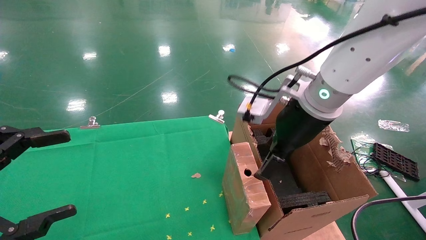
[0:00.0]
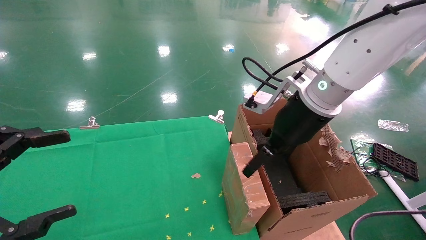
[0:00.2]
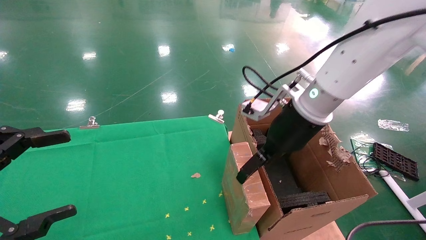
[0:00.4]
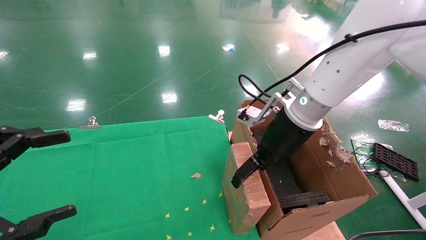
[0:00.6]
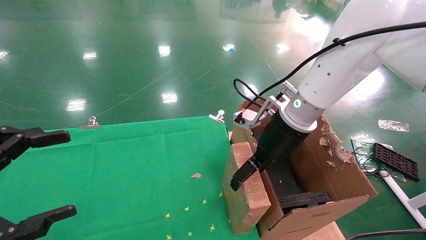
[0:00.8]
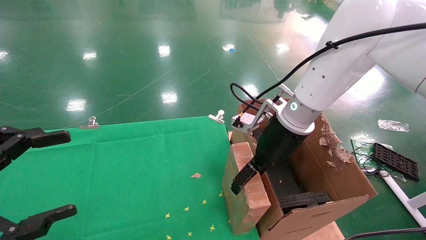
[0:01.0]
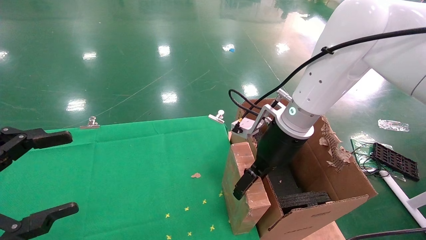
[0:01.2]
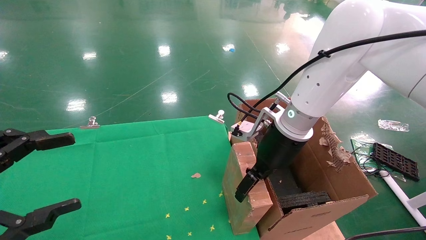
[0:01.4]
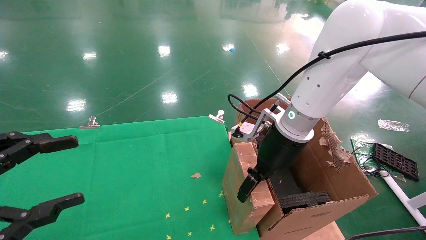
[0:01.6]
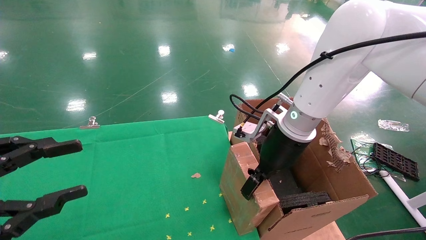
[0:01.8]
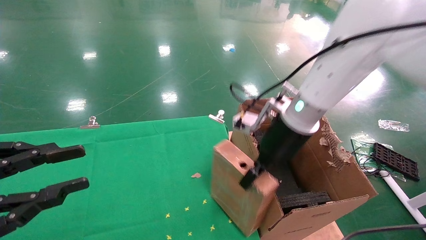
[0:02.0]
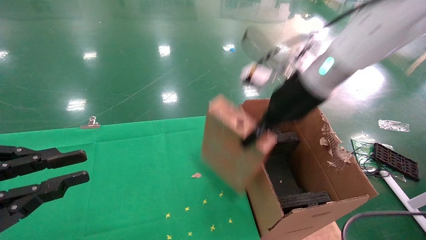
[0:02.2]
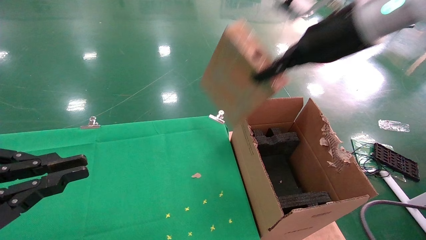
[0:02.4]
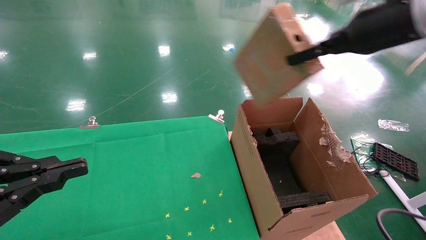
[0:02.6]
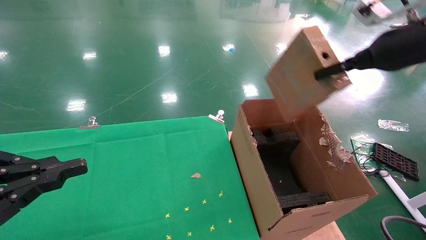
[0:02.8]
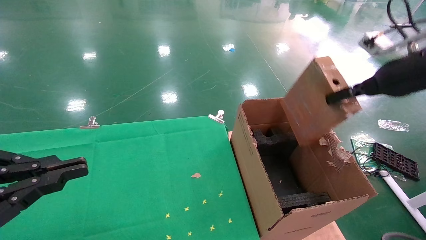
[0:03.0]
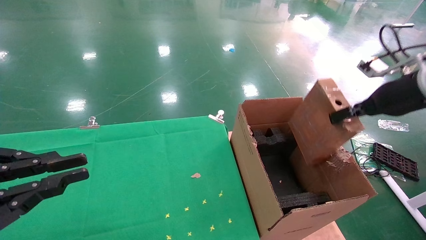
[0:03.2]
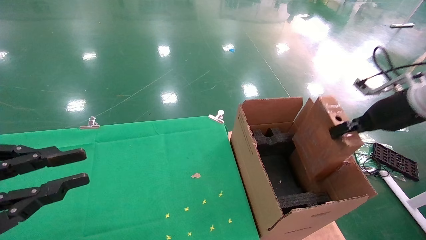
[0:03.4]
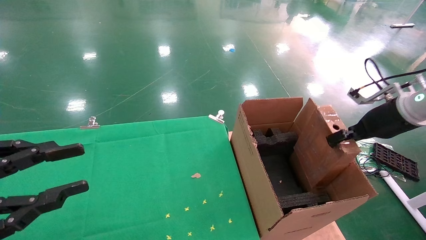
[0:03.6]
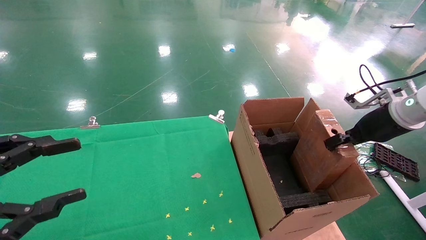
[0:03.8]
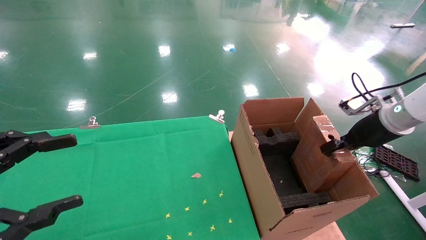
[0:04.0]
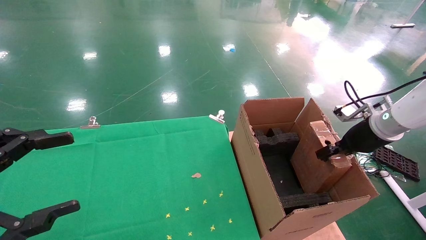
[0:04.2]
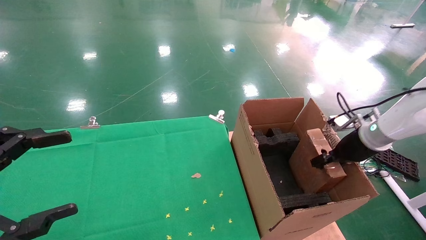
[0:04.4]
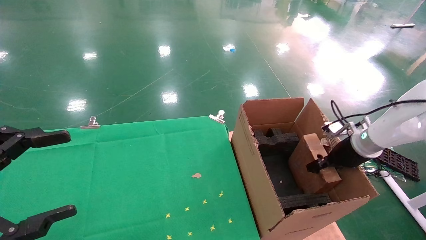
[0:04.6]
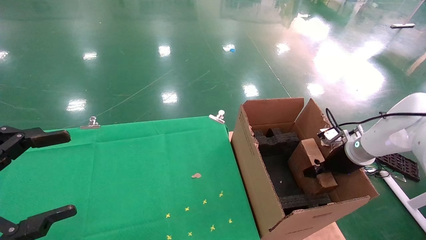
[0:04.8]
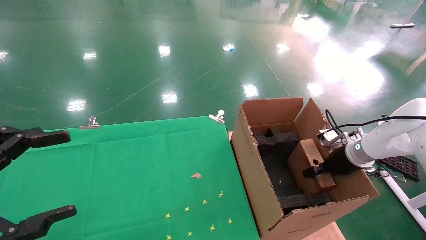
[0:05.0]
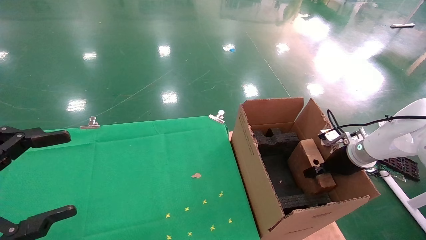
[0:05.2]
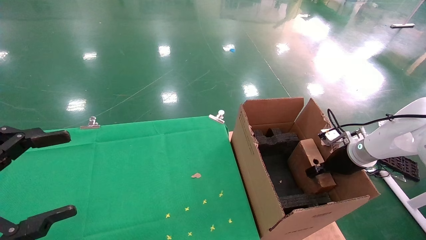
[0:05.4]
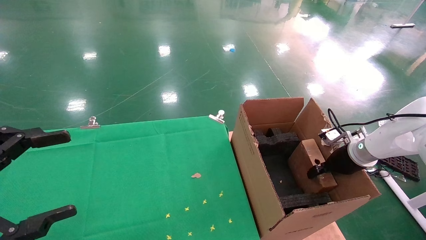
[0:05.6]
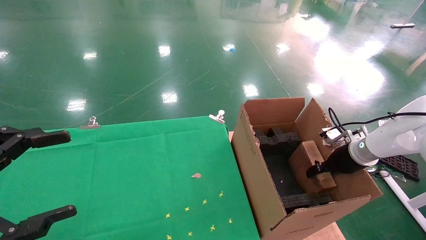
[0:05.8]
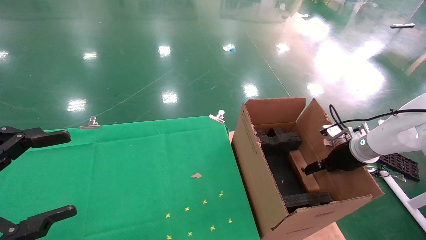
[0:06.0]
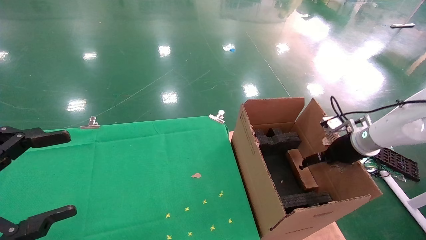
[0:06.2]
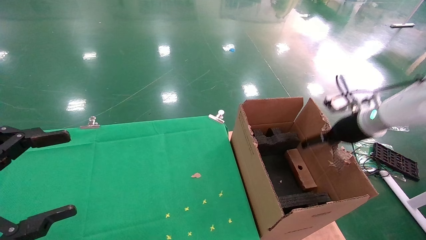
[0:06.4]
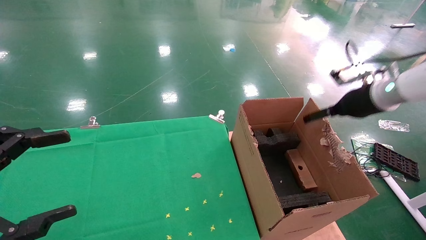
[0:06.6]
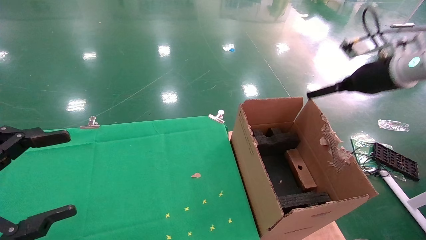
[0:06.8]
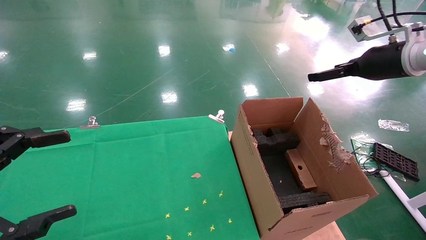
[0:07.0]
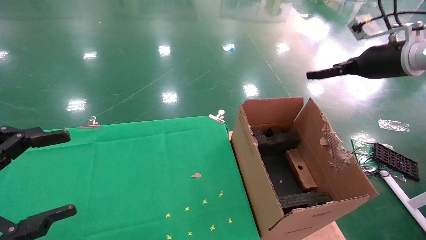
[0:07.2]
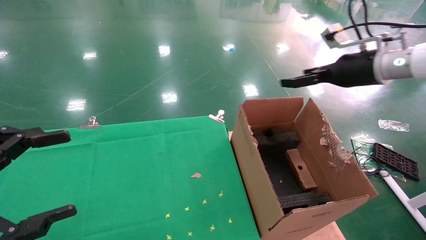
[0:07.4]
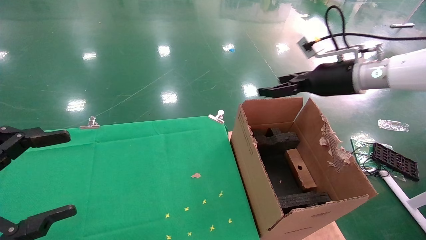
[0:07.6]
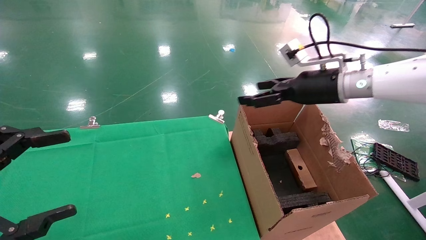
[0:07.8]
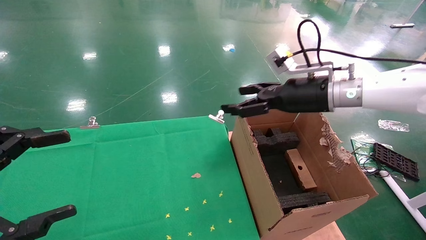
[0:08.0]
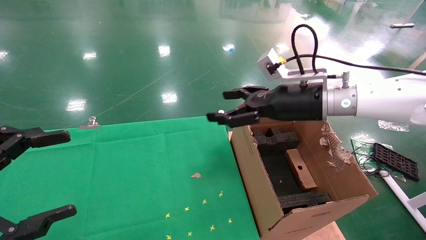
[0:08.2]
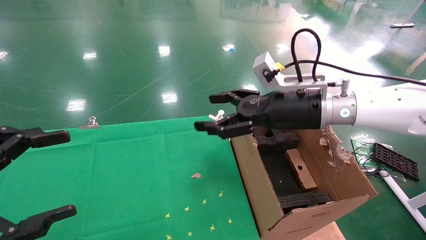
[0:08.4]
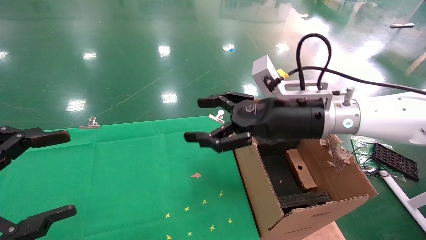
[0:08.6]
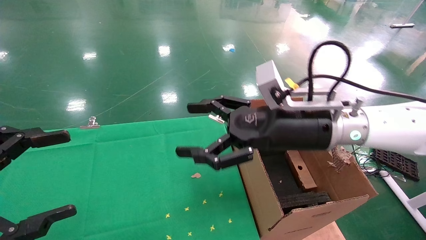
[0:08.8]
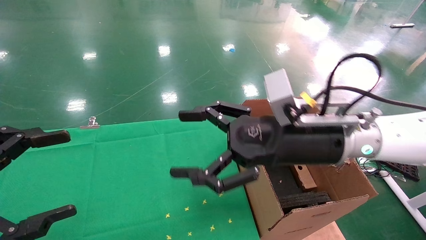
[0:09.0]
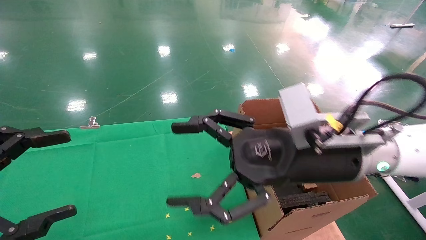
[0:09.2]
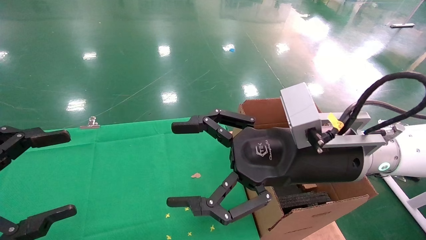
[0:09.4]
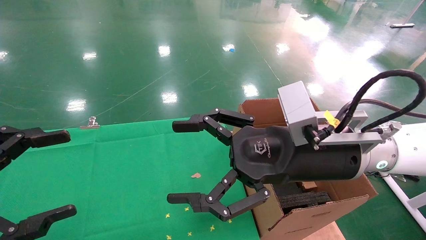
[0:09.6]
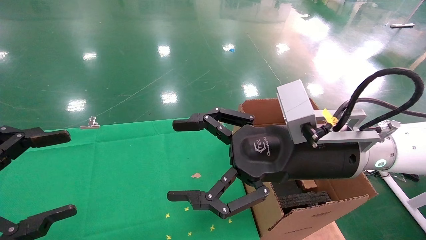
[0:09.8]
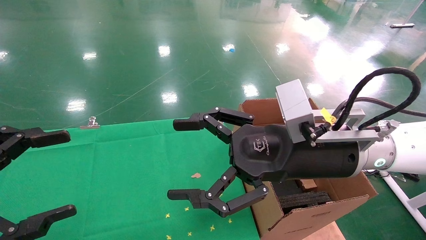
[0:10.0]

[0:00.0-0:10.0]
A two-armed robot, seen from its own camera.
Task of the whole recording: using a robotic arm to pick up a cardboard box and palace it the carton.
Step, 0:02.0 to 0:06.8: Place the mouse and the power cord paper box into the container.
0:00.0 to 0:01.4: The right gripper travels downward by about 5 cm.
0:01.4 to 0:02.8: The left gripper closes its fingers. Meanwhile the right gripper travels to the right and upward by approximately 25 cm, and closes.
0:02.8 to 0:04.2: The right gripper goes some 20 cm downward. The left gripper opens up.
0:04.2 to 0:05.8: The right gripper heads downward, covering about 10 cm, and opens.
0:05.8 to 0:07.2: The right gripper travels upward by about 20 cm, and opens.
0:07.2 to 0:08.6: The right gripper goes about 20 cm to the left.
0:08.6 to 0:10.0: The right gripper goes roughly 10 cm backward.

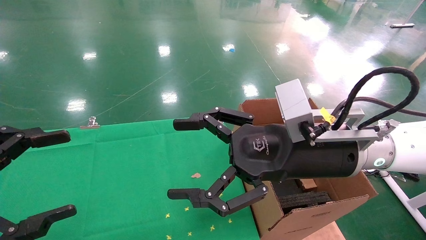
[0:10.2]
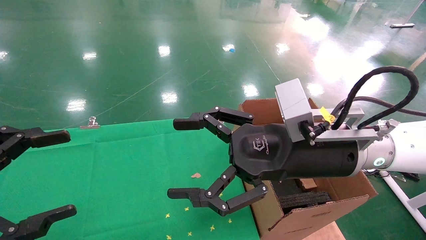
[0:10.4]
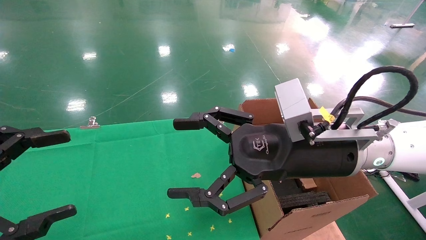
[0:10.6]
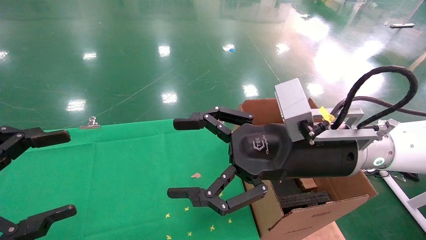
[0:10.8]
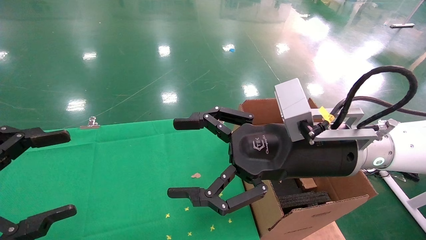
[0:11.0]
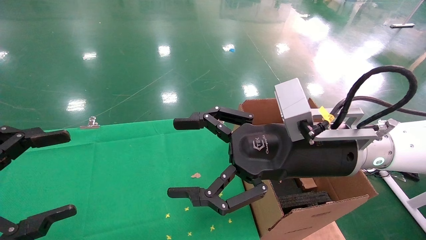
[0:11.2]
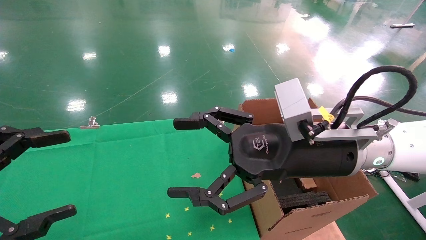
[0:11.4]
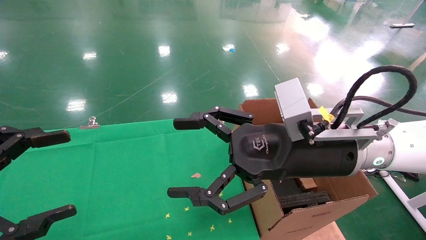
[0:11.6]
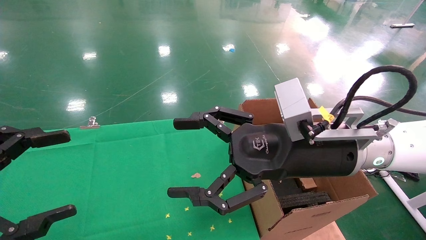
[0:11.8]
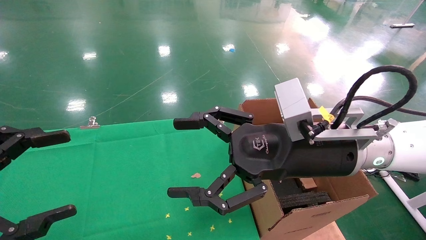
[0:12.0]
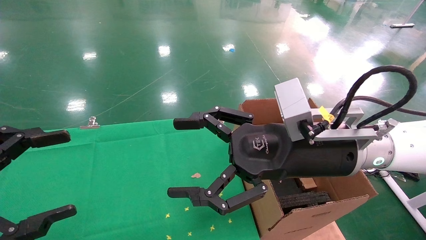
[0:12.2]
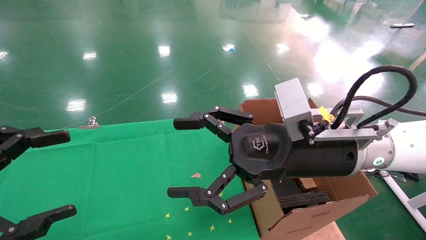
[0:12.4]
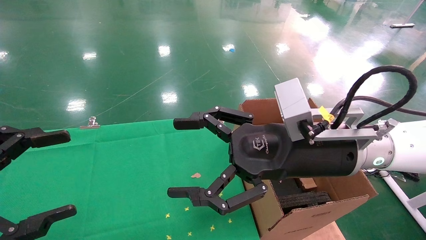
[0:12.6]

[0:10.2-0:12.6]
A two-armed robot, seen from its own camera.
Task of the whole recording: using a robotic arm to pick up a cardboard box and palace it the carton.
0:10.2 to 0:12.6: Both grippers stay about where they are.
